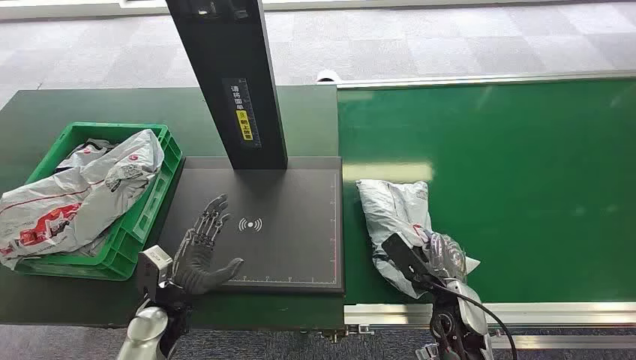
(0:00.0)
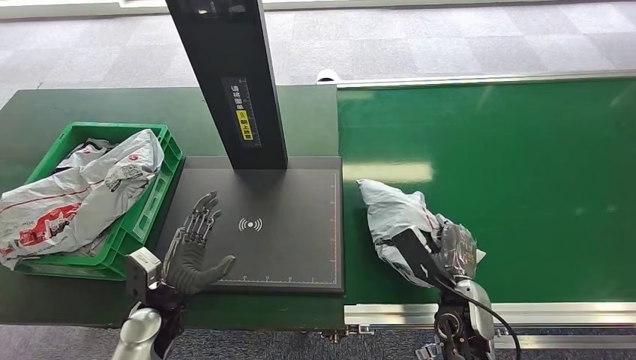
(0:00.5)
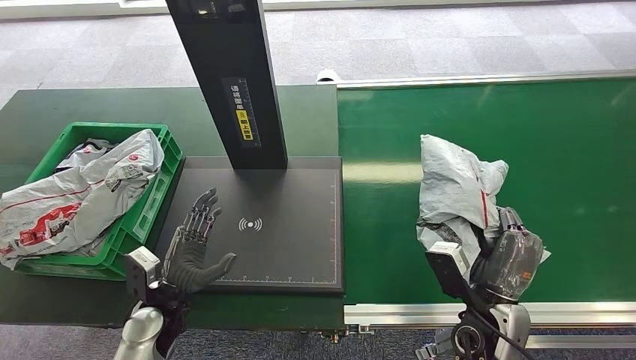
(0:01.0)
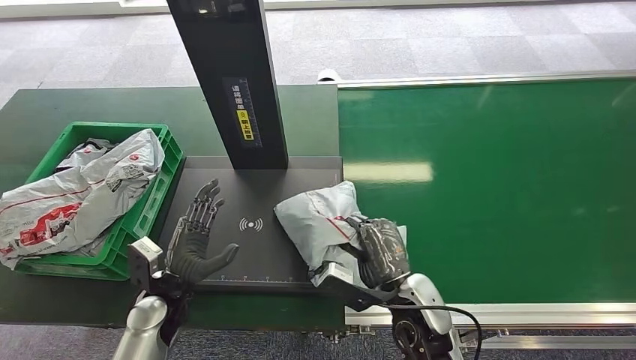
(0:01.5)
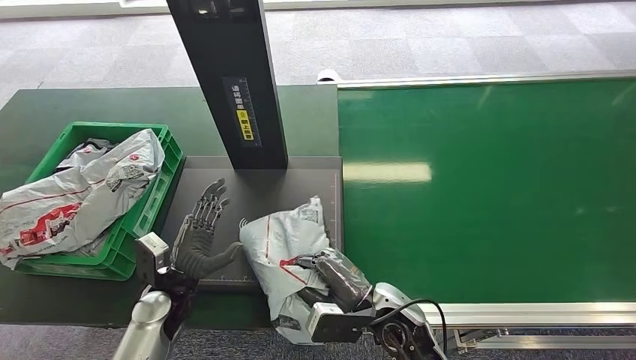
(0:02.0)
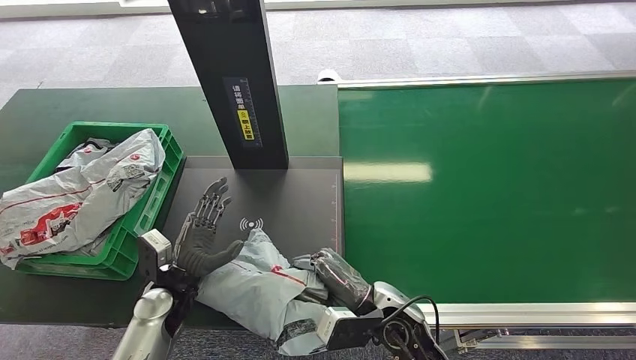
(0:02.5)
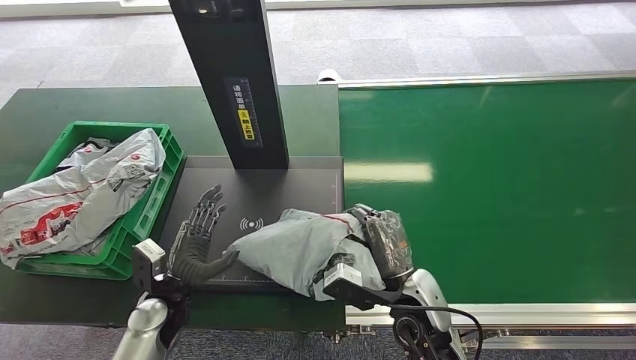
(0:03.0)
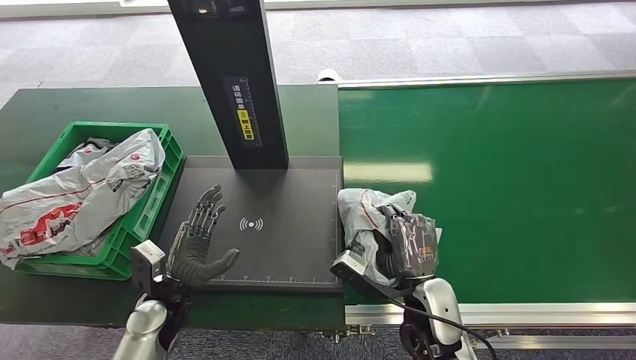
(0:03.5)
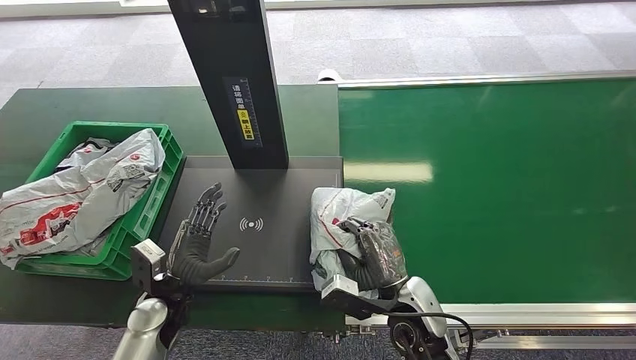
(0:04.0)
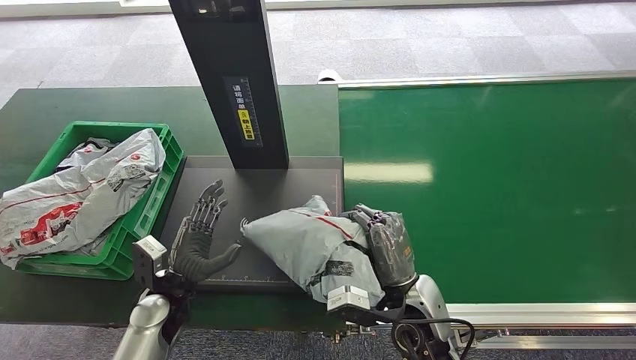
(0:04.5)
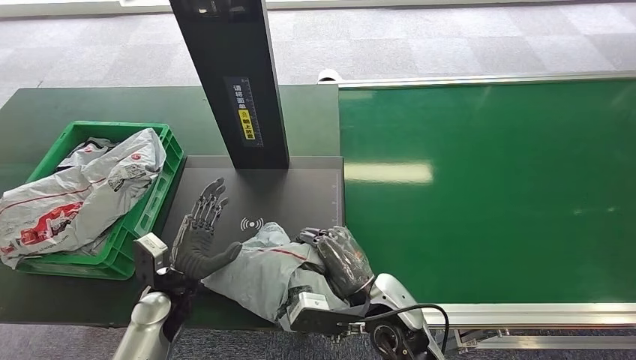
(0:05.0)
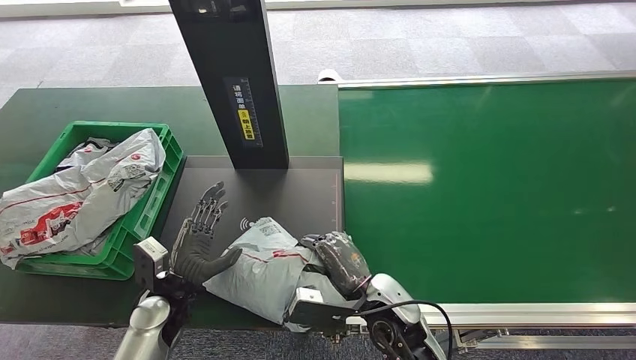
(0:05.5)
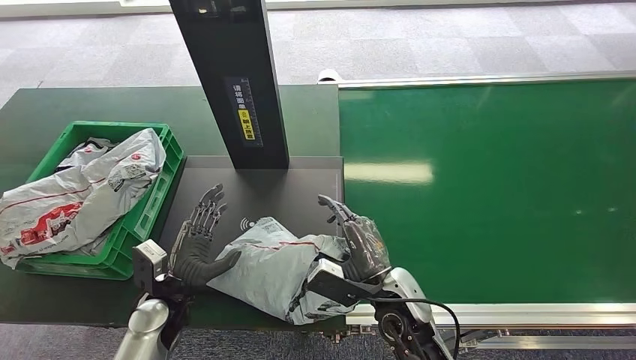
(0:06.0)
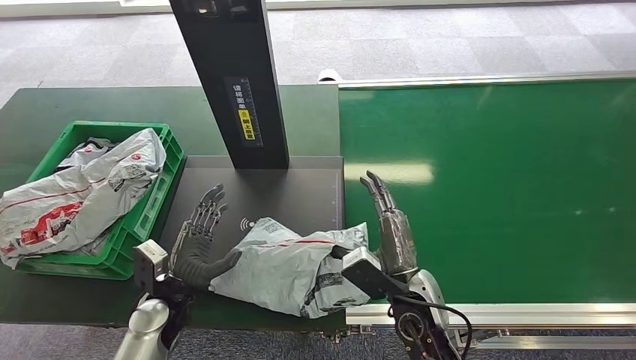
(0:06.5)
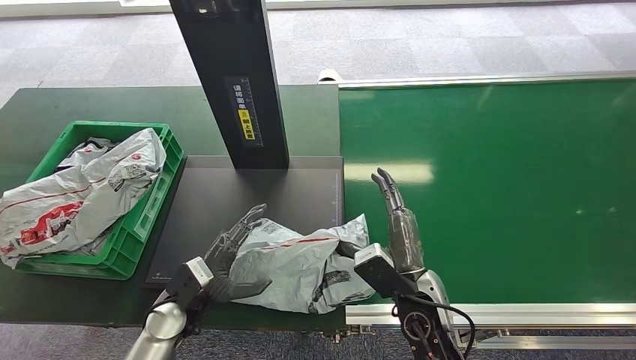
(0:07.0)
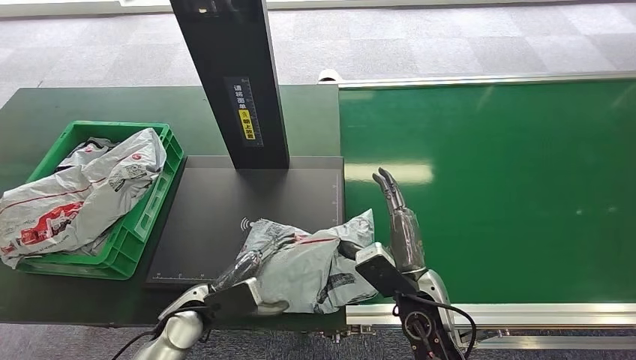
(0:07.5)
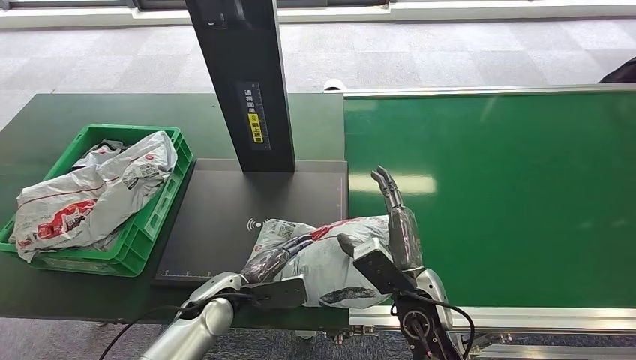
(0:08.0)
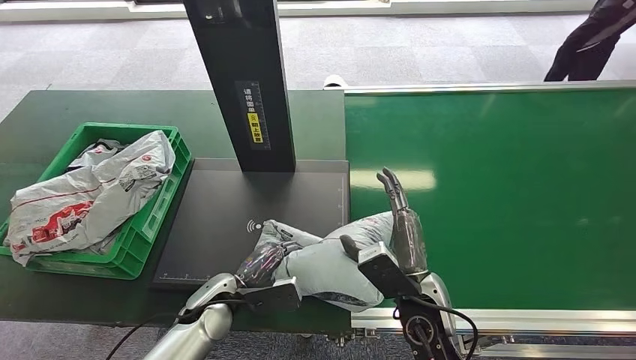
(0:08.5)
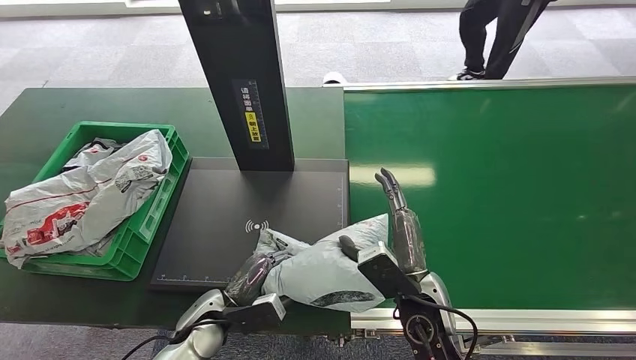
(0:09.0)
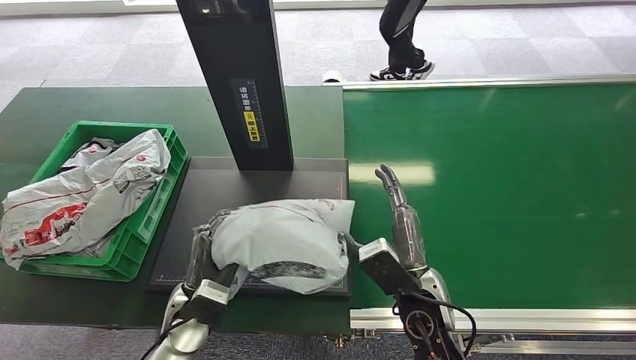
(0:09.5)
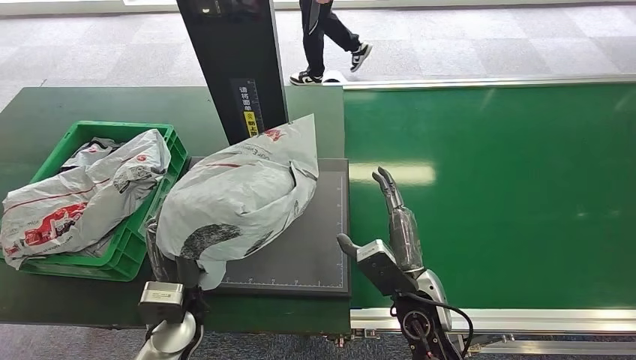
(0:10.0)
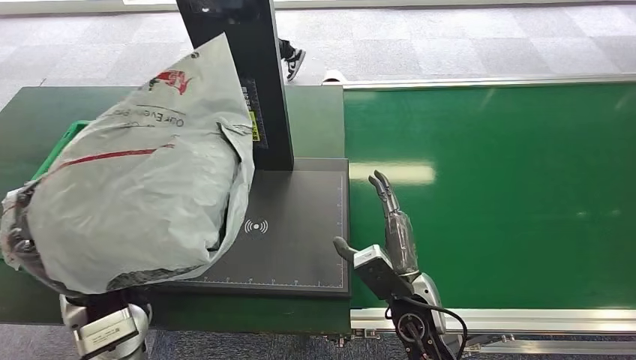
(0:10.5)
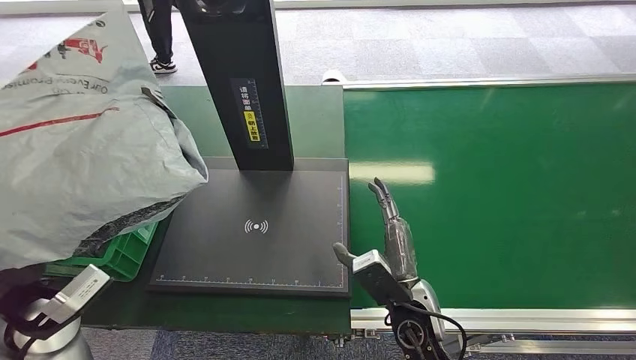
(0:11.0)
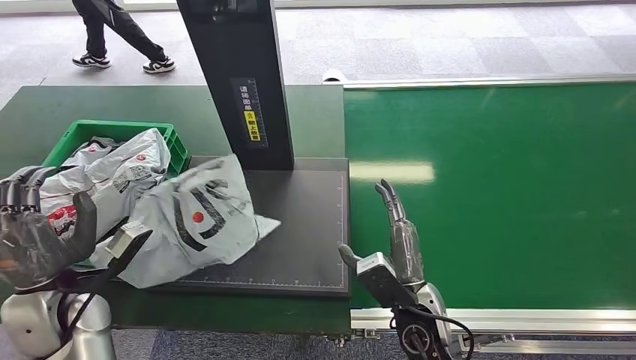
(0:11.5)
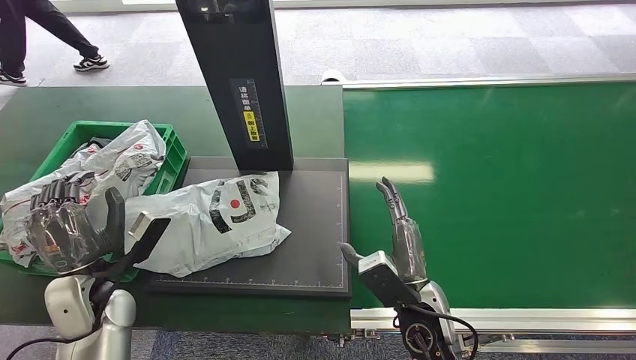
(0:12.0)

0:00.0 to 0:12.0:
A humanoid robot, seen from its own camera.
Step, 0:00.0 to 0:01.0: Pick up the package from the conveyor belt.

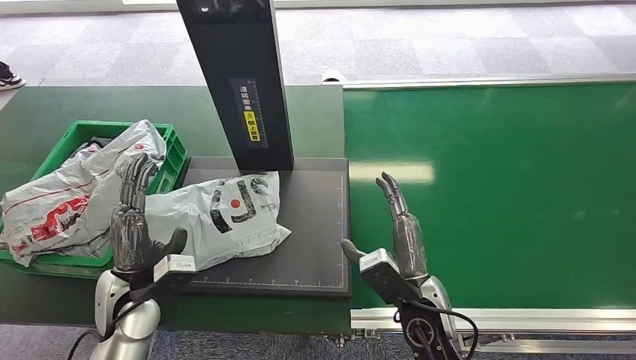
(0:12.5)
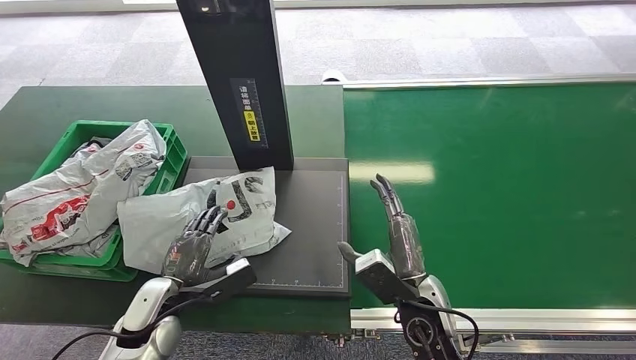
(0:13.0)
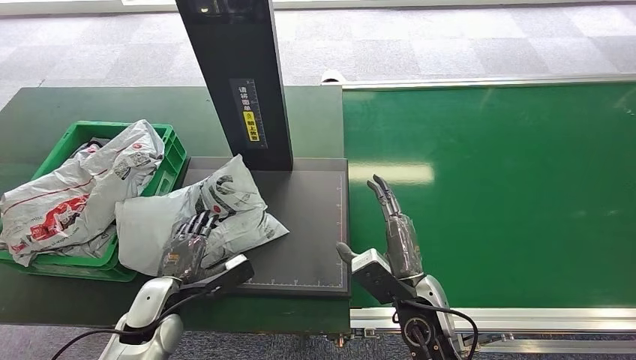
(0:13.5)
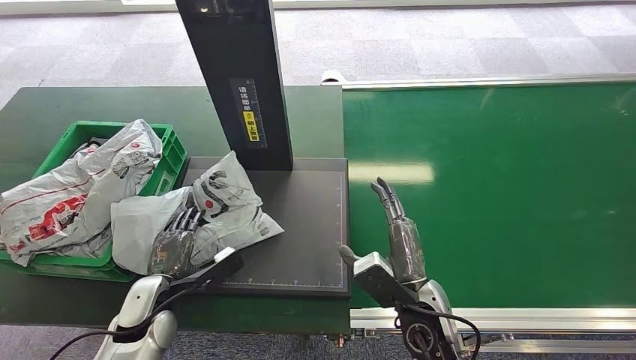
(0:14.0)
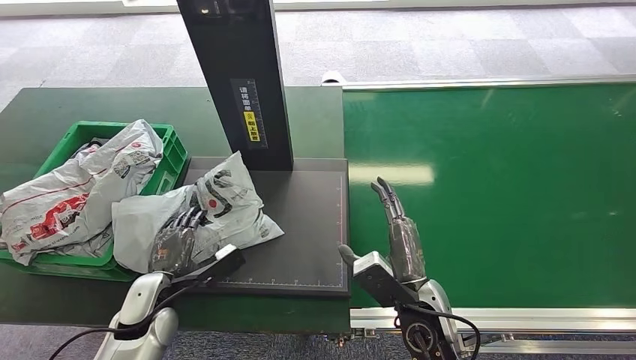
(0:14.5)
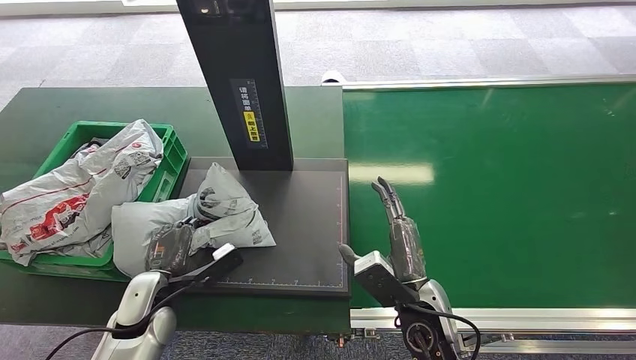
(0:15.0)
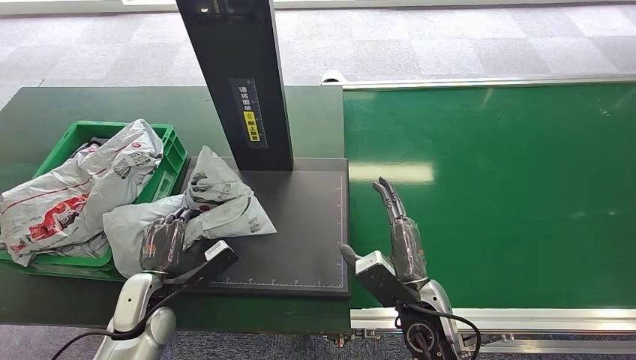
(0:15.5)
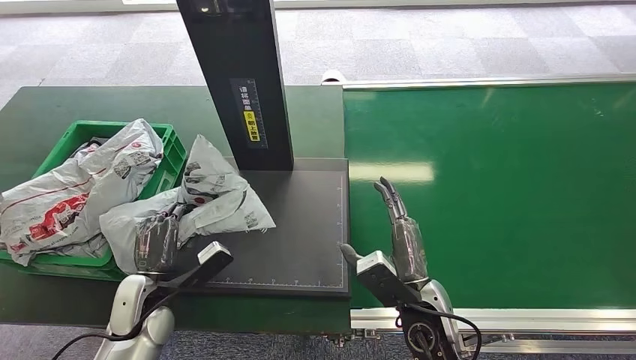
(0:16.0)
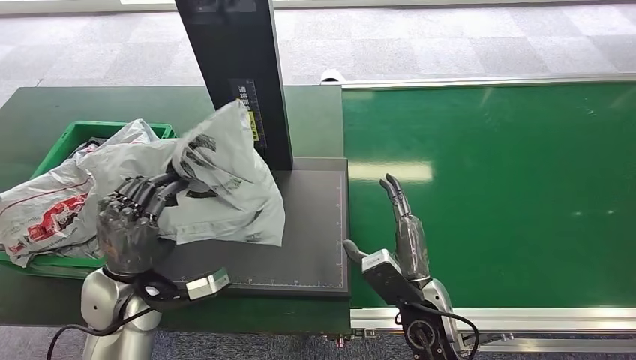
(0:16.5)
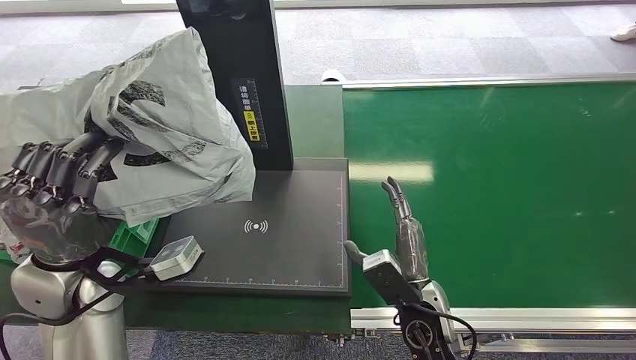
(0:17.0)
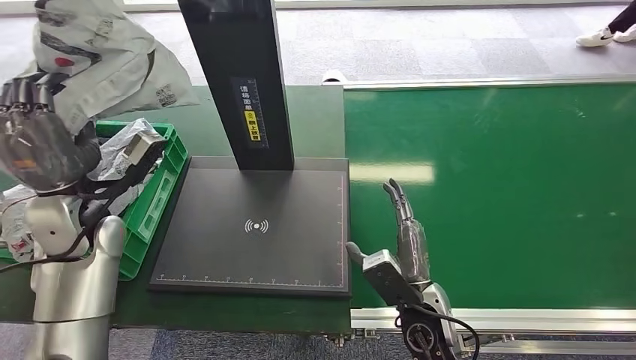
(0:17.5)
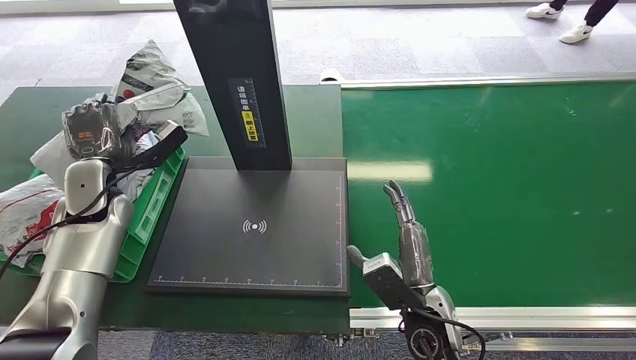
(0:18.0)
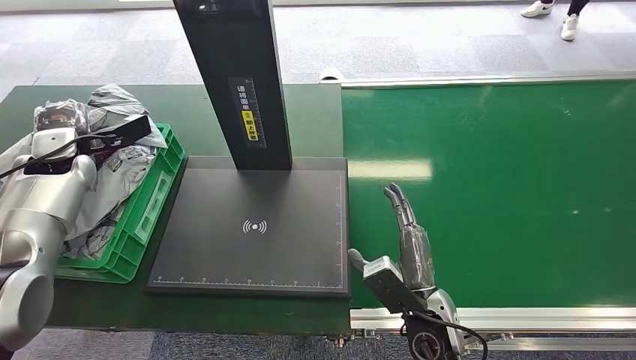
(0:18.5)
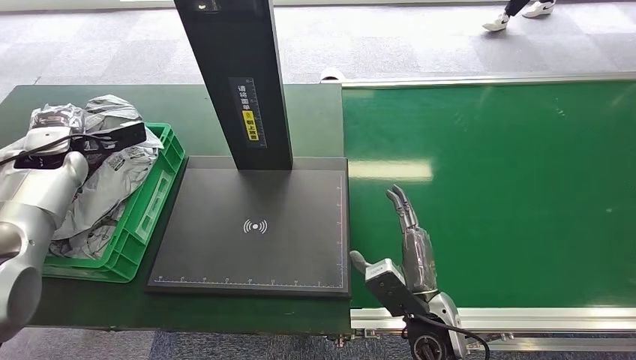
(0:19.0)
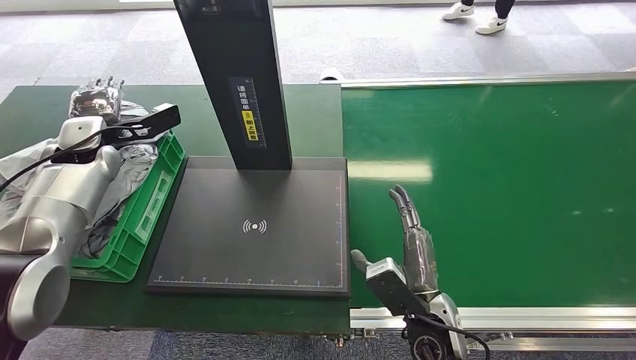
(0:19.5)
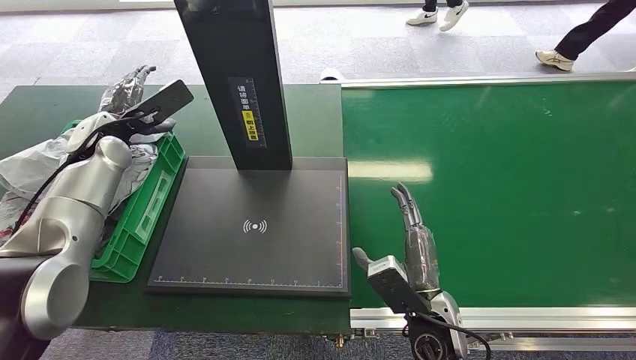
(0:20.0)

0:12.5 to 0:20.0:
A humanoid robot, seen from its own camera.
Step, 0:13.0 to 0:16.5: Pick up the package from the inbound machine.
Step, 0:17.5 to 0:20.0: Place the package into the parcel locker.
0:12.5 to 0:14.5: The left hand goes about 5 cm downward.
0:14.5 to 0:16.5: The left hand is displaced upward by roughly 10 cm.
0:18.0 to 0:20.0: The left hand heads forward, covering some 5 cm, and moves about 10 cm to the left and comes back.
